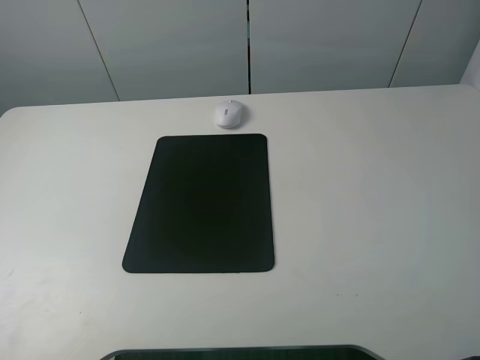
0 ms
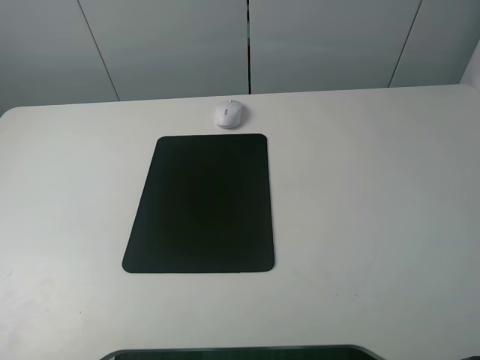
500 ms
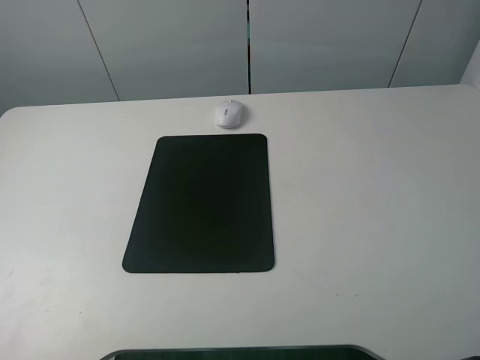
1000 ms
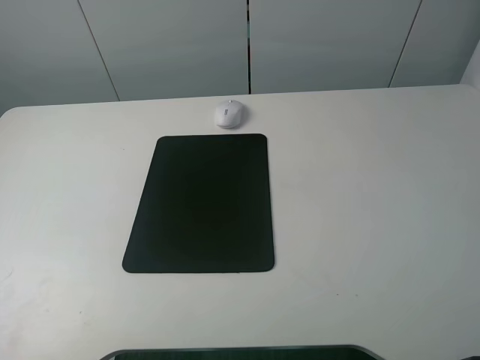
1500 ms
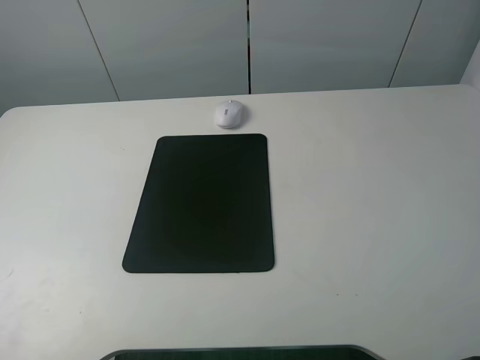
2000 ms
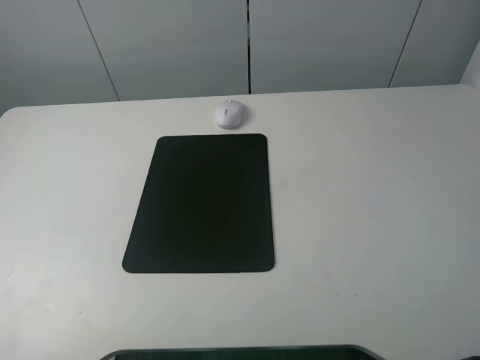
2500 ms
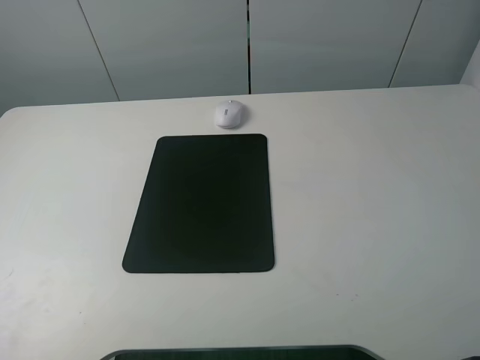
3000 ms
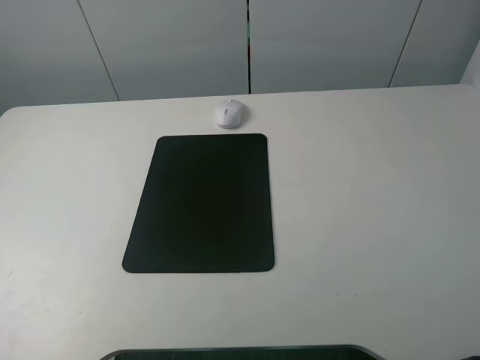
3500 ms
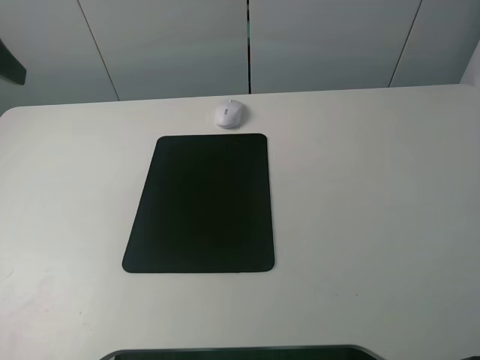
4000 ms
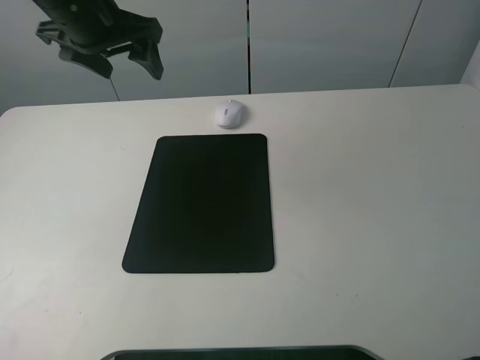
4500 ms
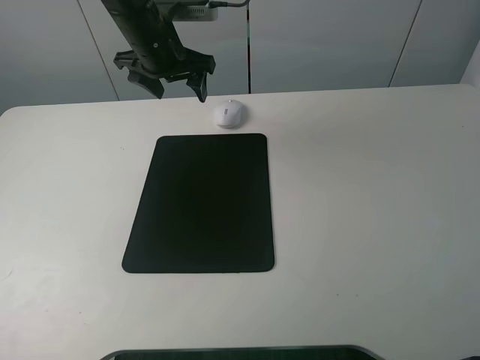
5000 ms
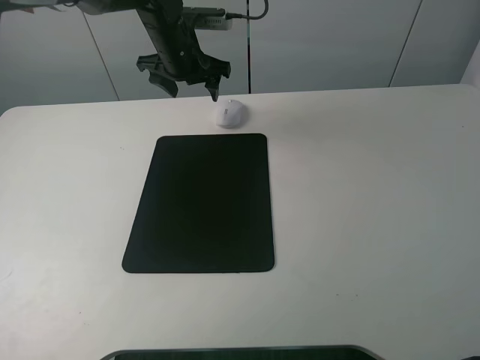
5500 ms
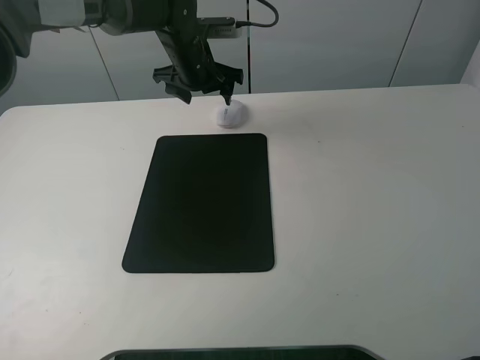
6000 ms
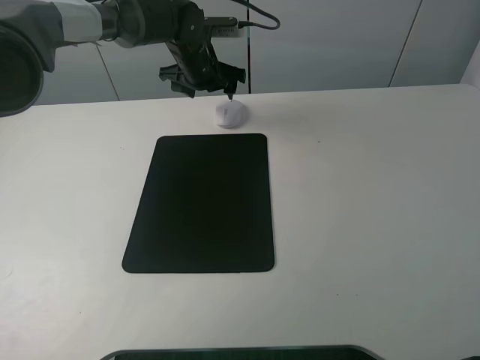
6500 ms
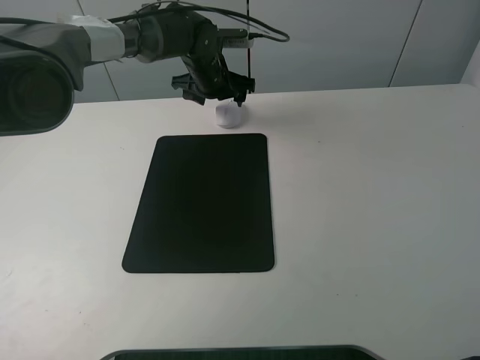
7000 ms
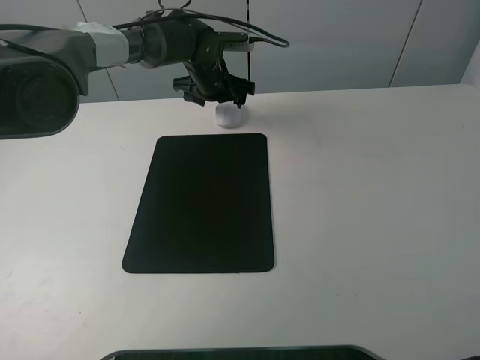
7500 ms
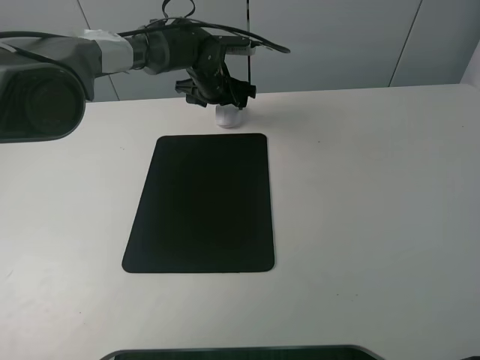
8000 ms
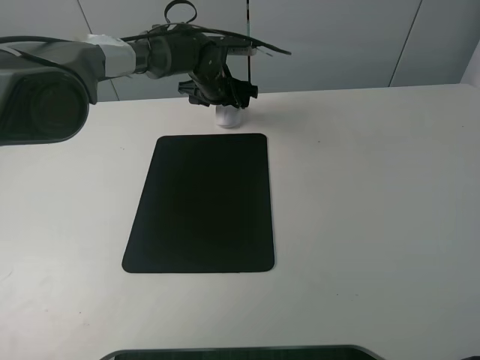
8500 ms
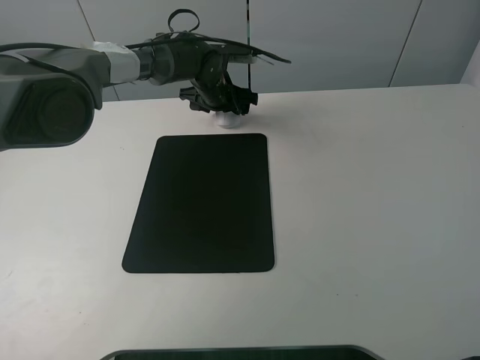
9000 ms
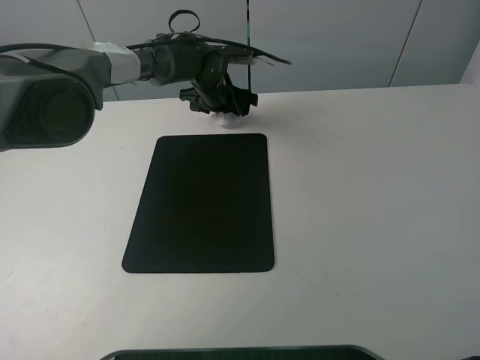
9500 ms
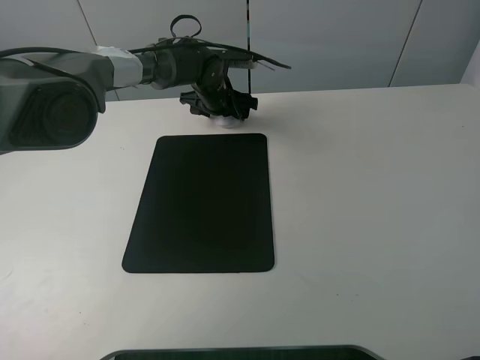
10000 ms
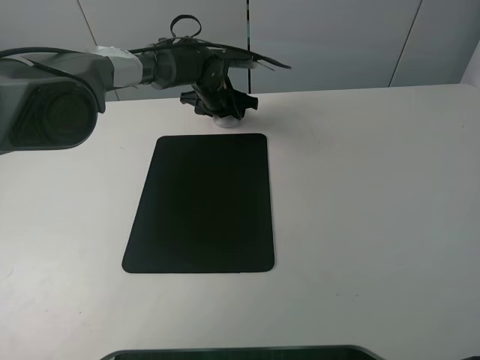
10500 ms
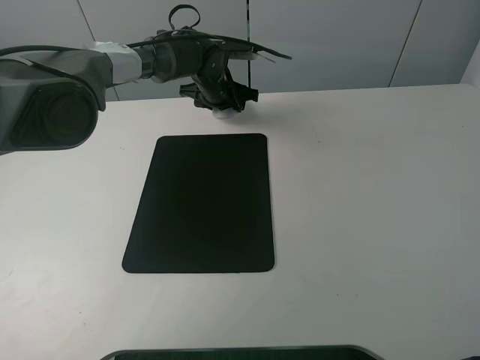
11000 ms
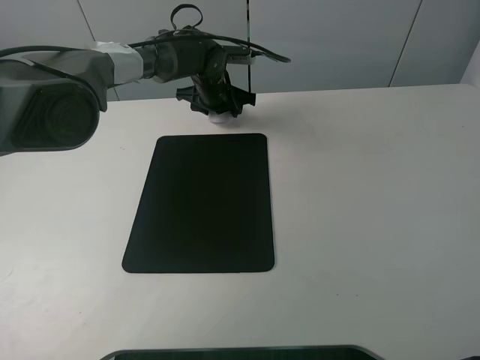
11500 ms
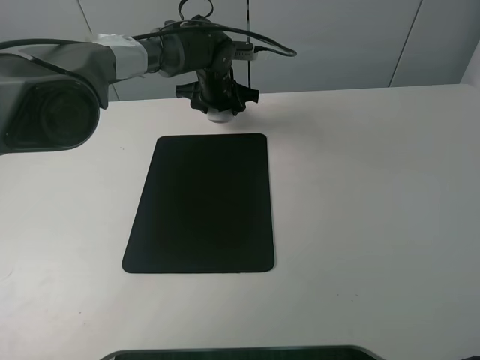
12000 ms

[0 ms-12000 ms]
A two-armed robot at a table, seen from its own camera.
Step, 0 ms to 10500 ms: Grasp the mouse with the left gripper.
0 ms to 2000 ms: Both grippers stay about where they are.
4000 ms to 6000 ms: The left gripper moves to the right, forward and downward, about 35 cm.
6000 ms to 8000 ms: The left gripper moves downward, approximately 5 cm.
8000 ms to 10000 ms: There are only small adjustments of the grippers.
10000 ms to 12000 ms: The left gripper closes up.

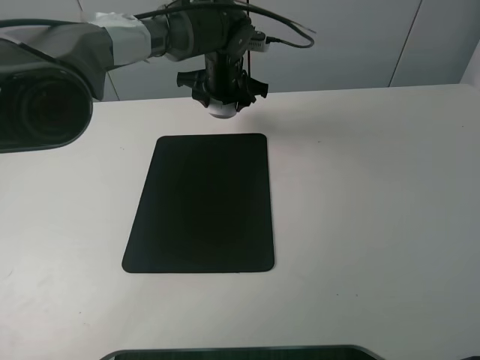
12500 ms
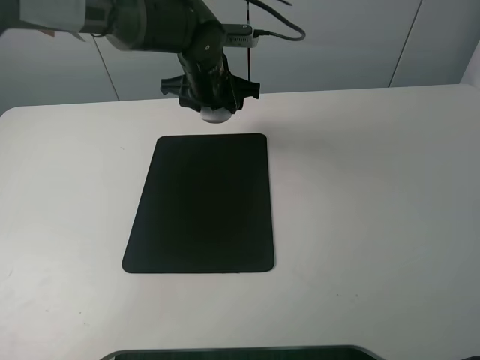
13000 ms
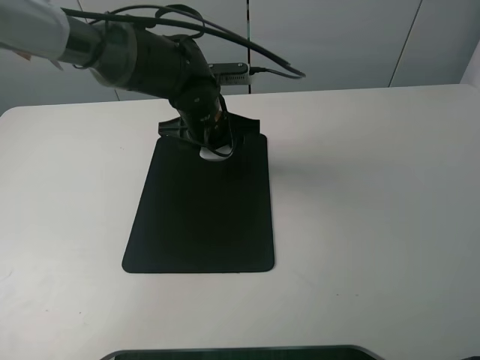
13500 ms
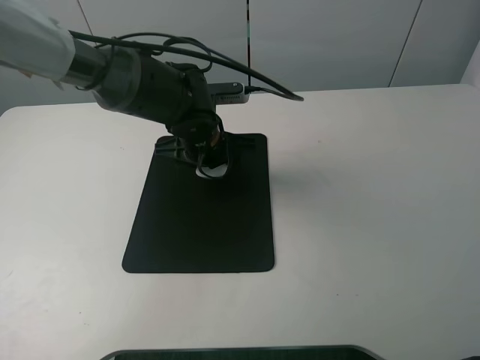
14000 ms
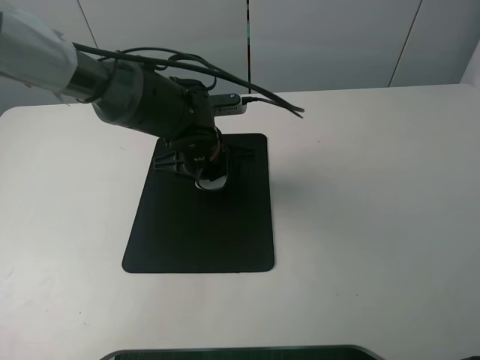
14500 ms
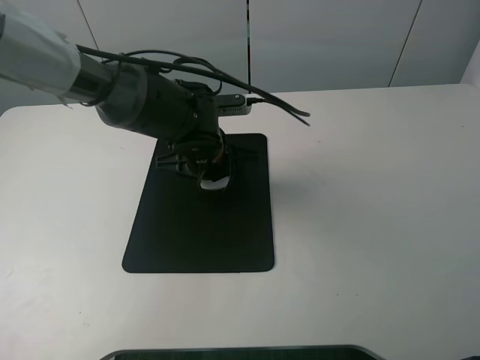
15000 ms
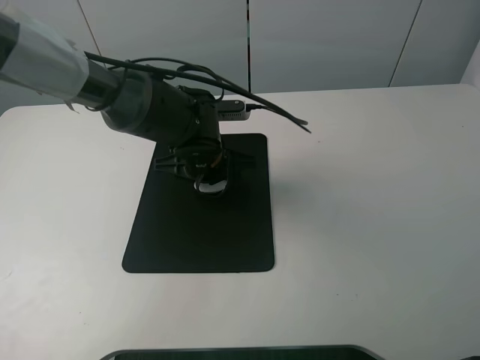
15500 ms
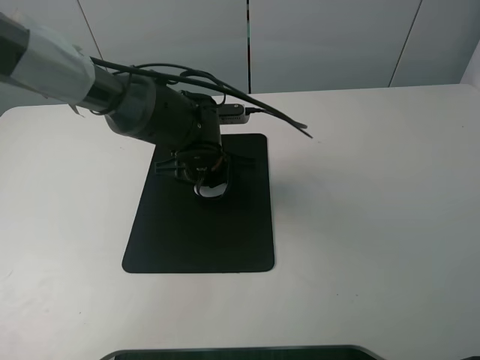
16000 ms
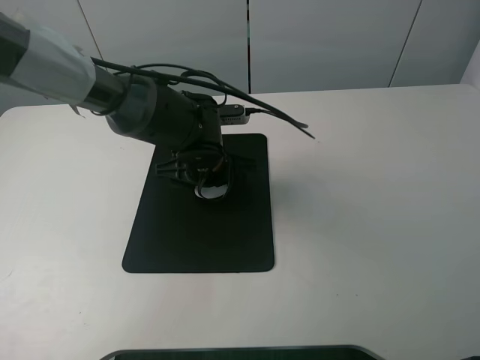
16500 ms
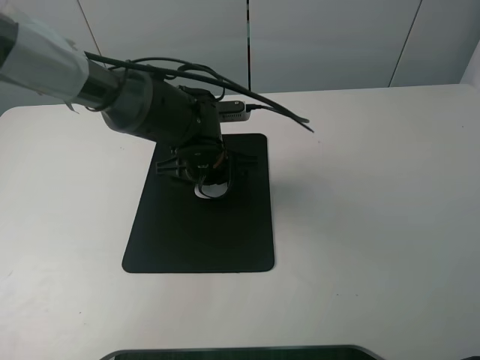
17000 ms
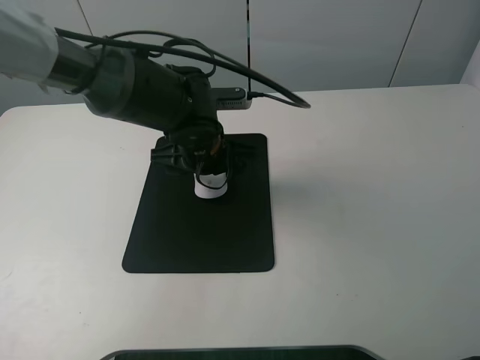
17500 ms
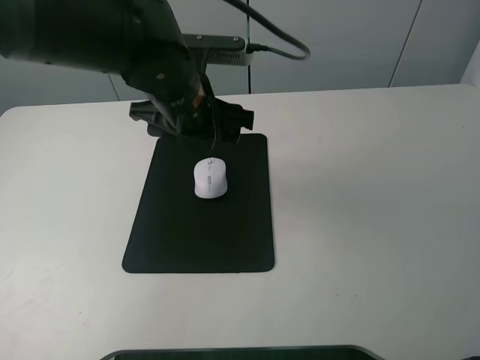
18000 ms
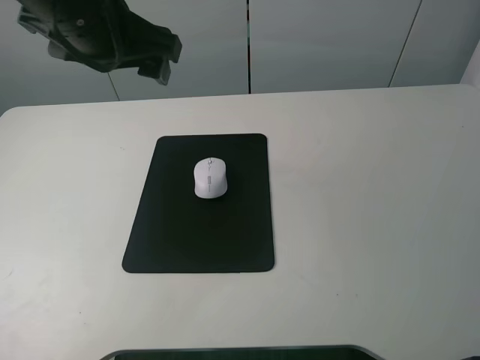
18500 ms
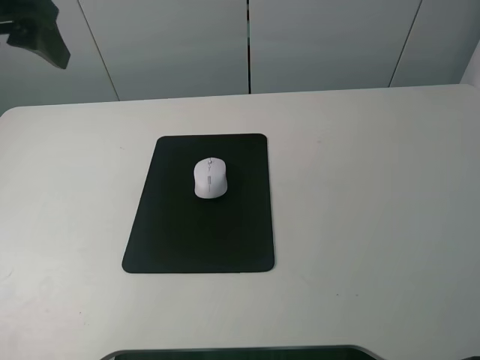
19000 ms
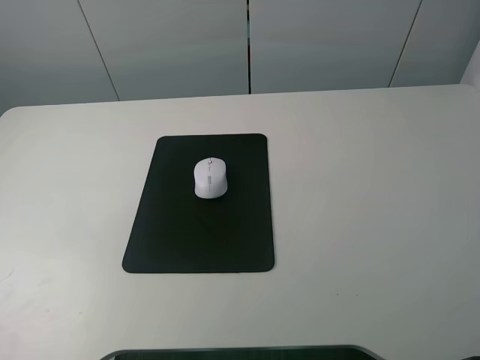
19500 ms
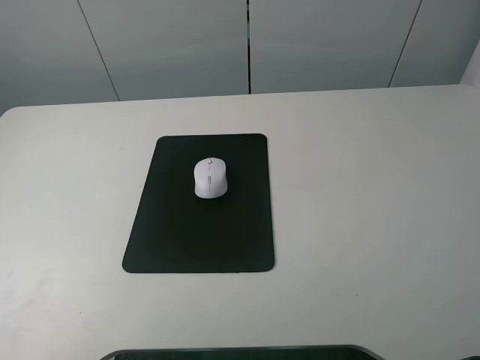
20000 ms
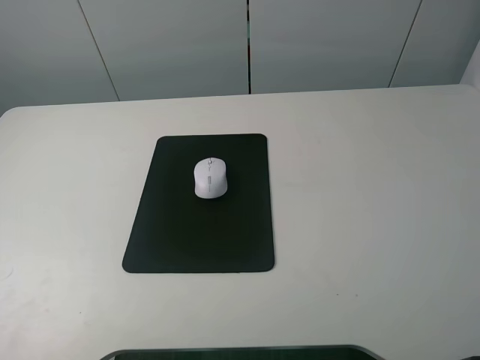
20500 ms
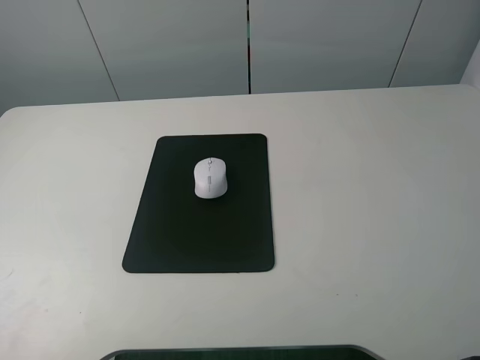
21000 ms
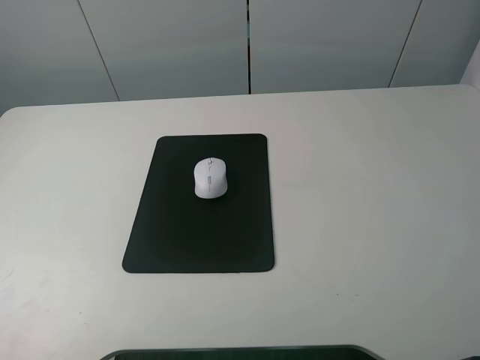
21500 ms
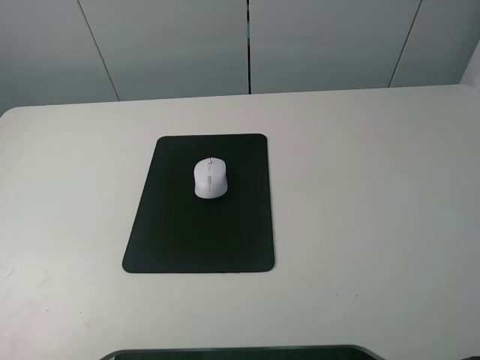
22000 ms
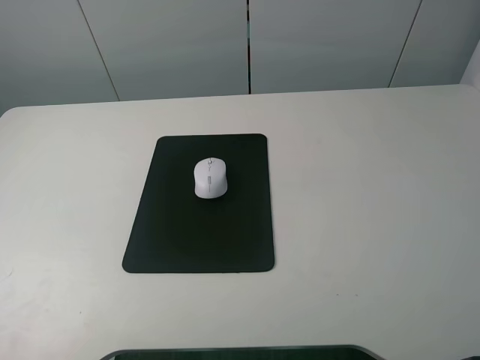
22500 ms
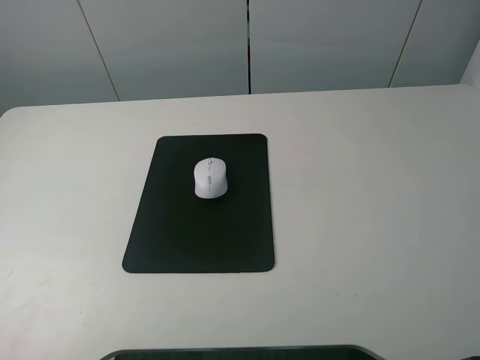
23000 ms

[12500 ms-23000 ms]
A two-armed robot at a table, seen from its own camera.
Step, 12500 ms to 16500 ms: Place the mouse on the mouse mat with the left gripper.
12500 ms to 14500 ms: The left gripper shifts some 15 cm backward.
14500 ms to 16500 ms: The left gripper opens up.
16500 ms to 19000 ms: The left gripper goes roughly 35 cm upward and to the left.
19000 ms to 21000 ms: The left gripper travels backward by roughly 25 cm.
21000 ms to 23000 ms: Both grippers stay about where they are.
